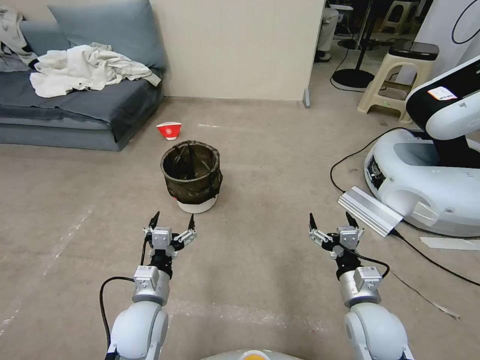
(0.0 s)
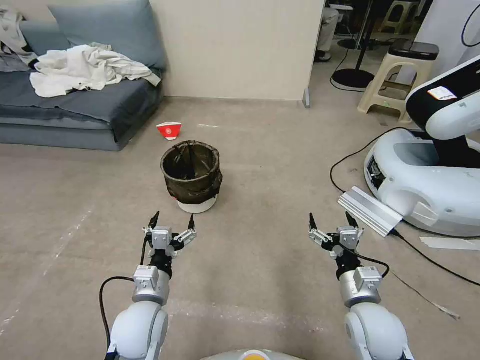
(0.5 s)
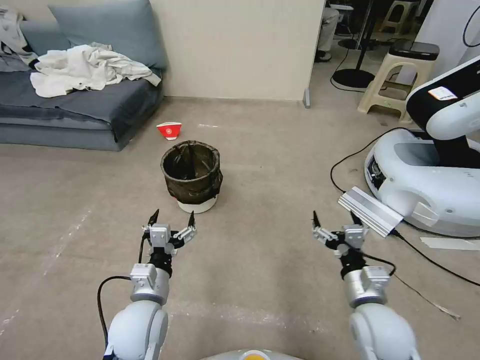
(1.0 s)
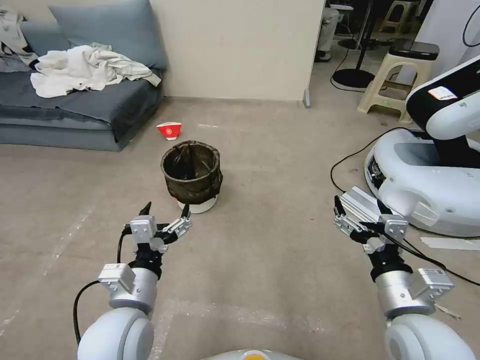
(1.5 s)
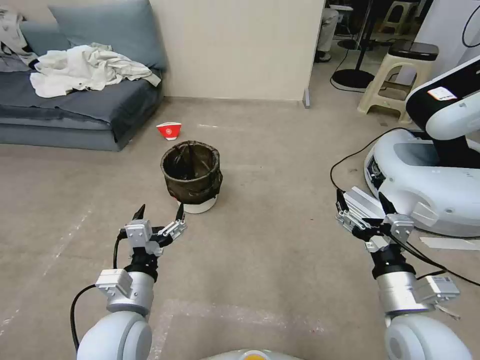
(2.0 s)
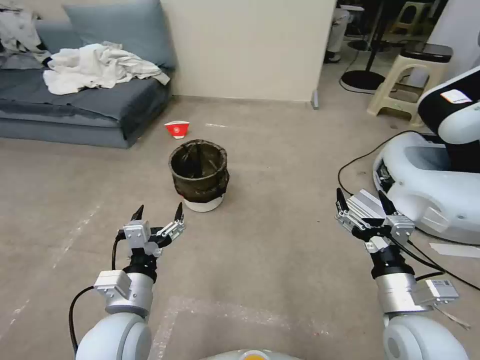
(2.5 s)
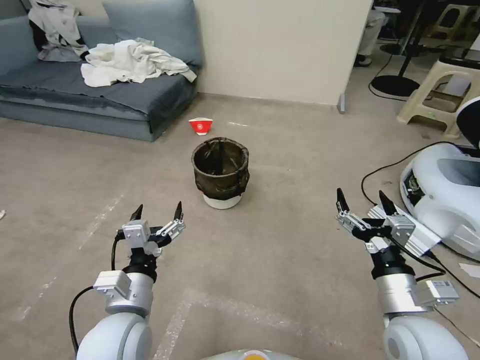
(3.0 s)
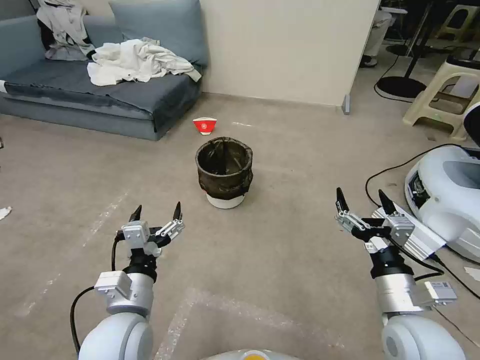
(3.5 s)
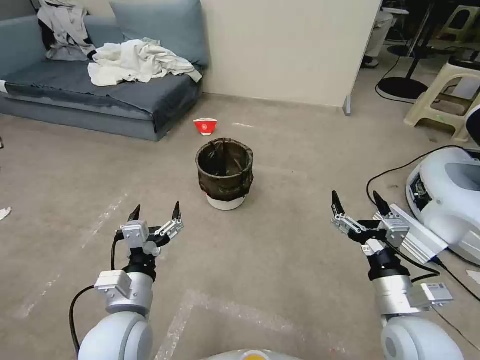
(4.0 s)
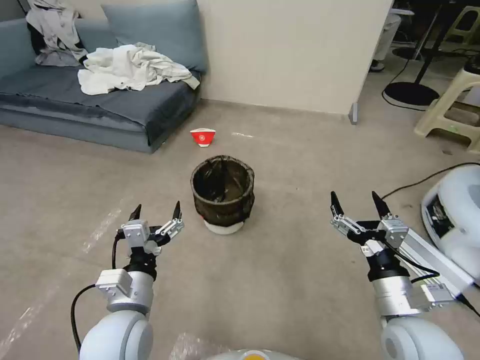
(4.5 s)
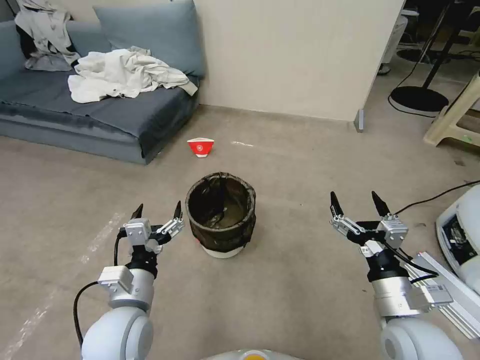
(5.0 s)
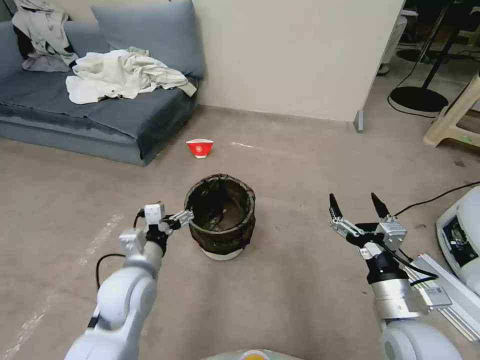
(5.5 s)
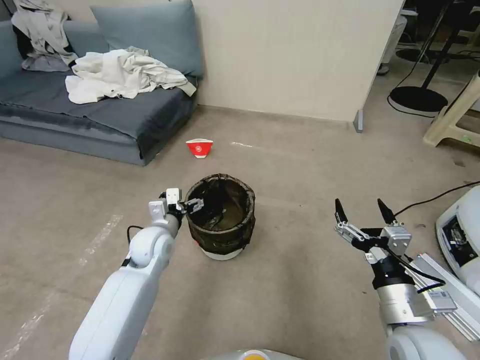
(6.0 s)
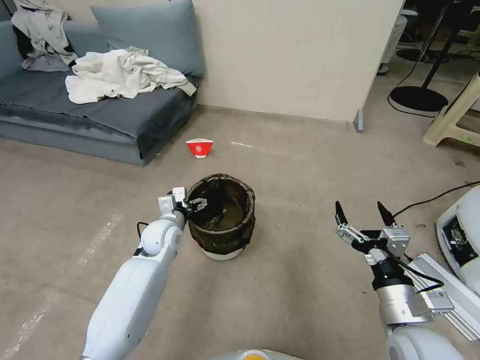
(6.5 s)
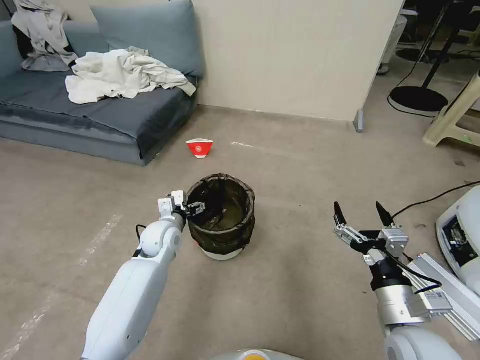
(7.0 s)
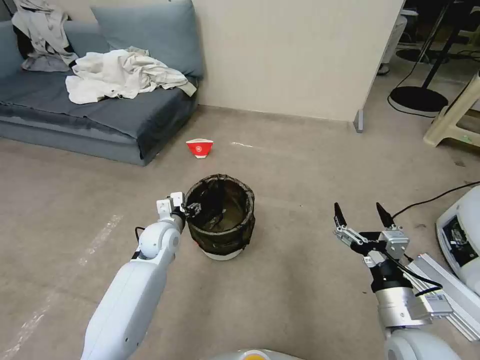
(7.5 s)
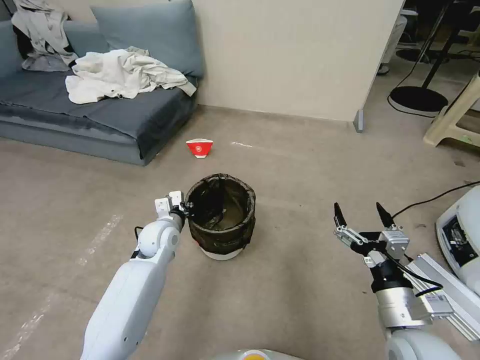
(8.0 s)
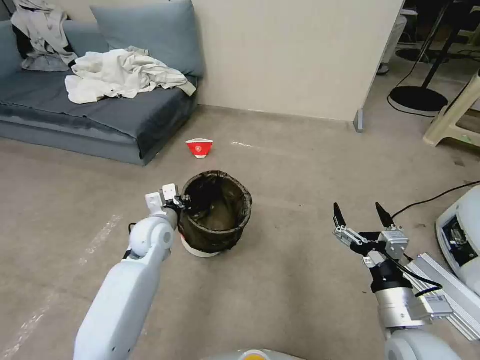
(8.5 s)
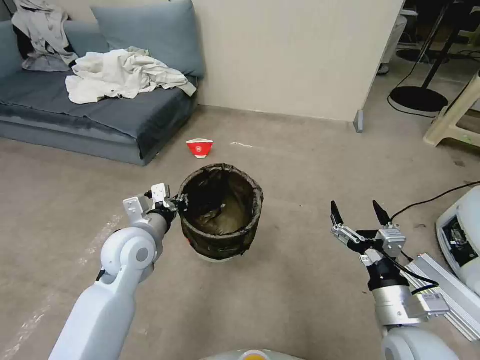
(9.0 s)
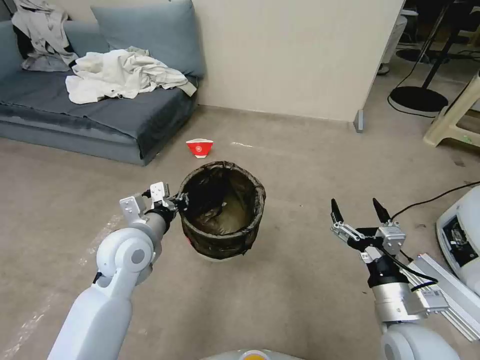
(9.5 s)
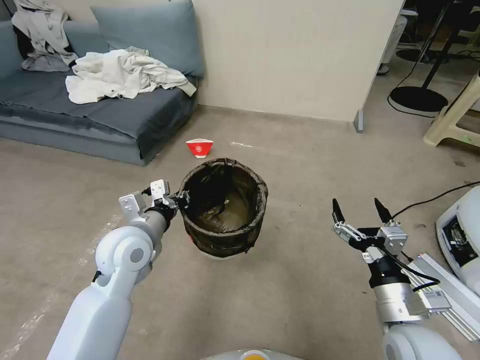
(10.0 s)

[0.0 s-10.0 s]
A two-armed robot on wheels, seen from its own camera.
Task of the whole recording: Pick up the trash can from the floor.
4.0 to 6.0 s: The left gripper travels forward by roughly 20 cm.
6.0 to 8.0 s: The left gripper closes its fingers.
8.0 to 10.0 s: The left gripper heads upward and backward, covering about 15 cm.

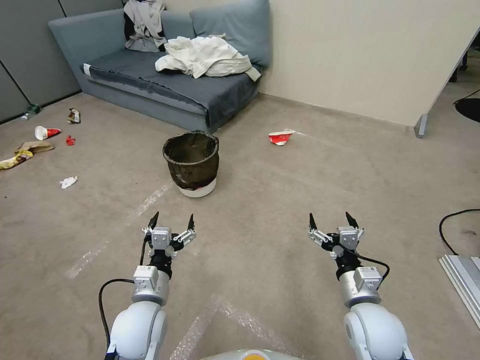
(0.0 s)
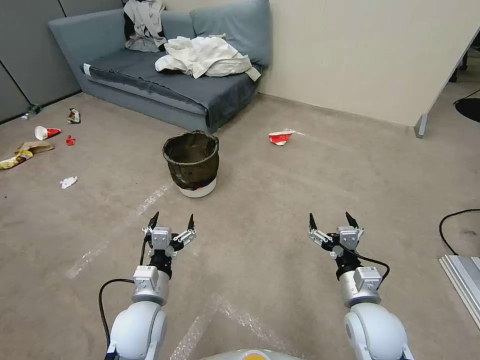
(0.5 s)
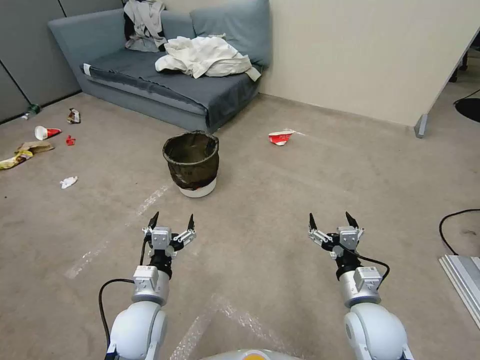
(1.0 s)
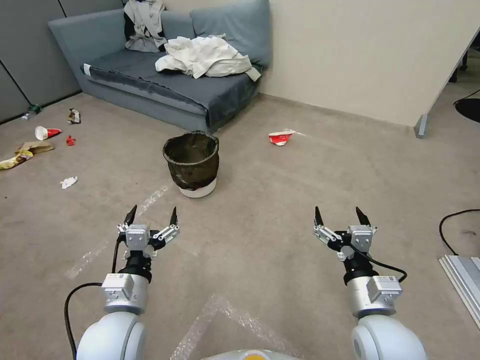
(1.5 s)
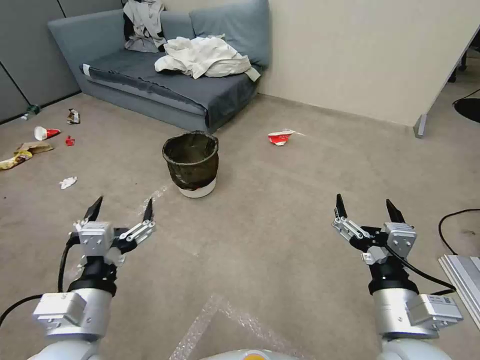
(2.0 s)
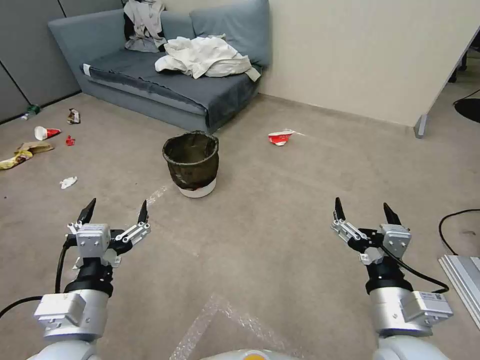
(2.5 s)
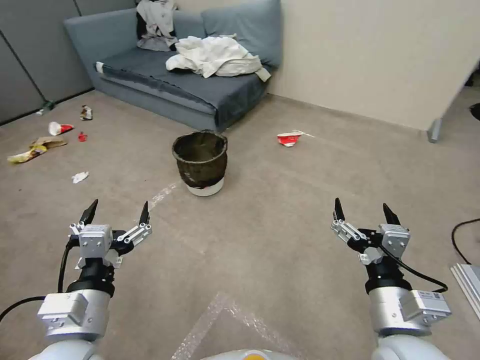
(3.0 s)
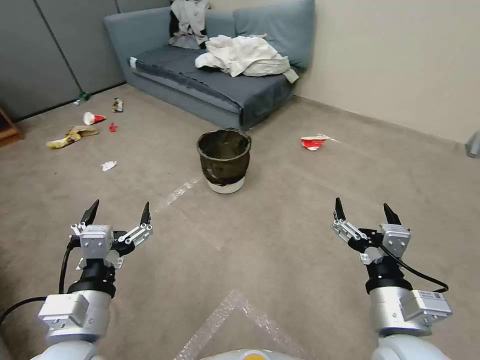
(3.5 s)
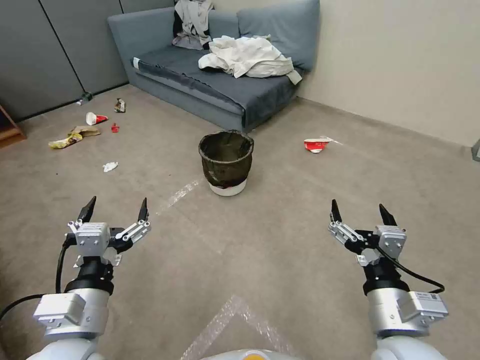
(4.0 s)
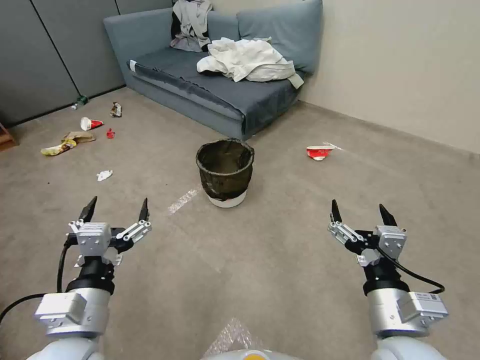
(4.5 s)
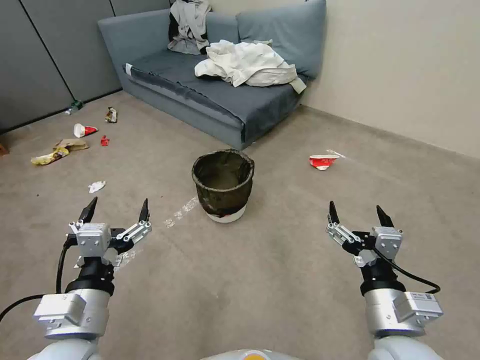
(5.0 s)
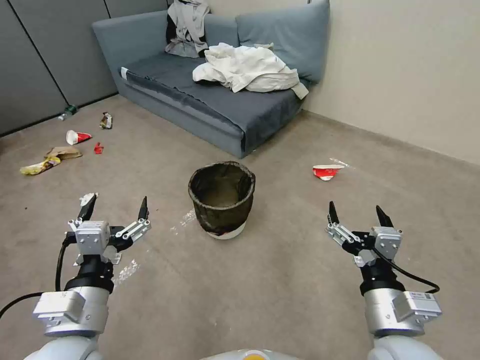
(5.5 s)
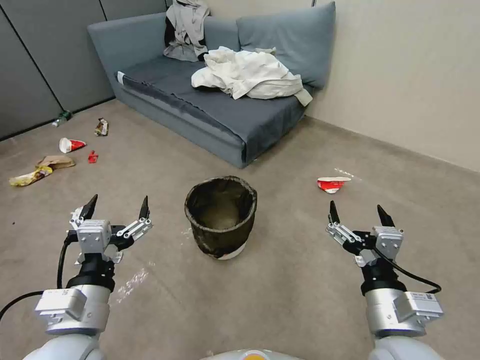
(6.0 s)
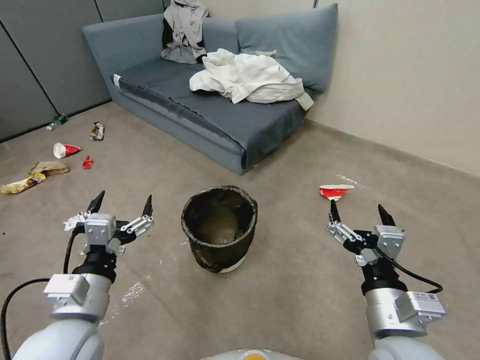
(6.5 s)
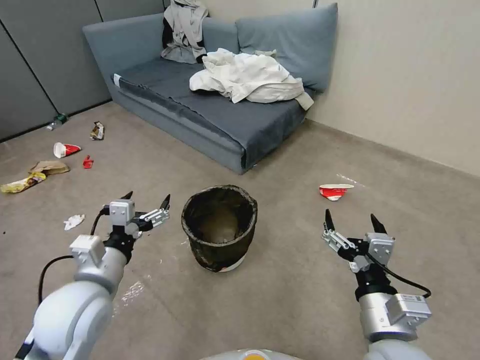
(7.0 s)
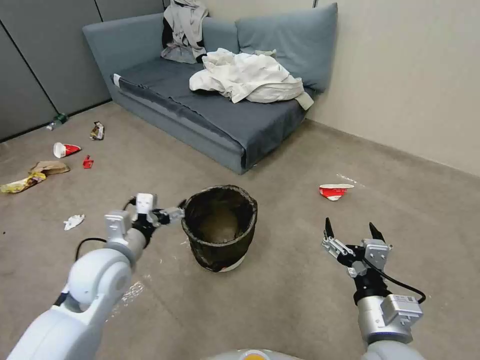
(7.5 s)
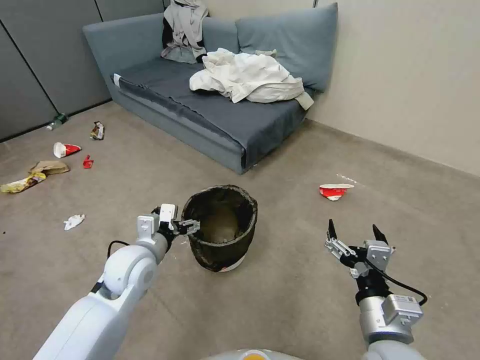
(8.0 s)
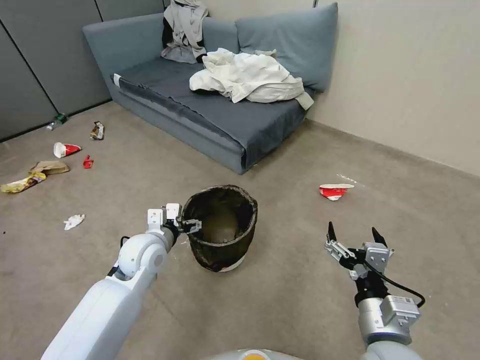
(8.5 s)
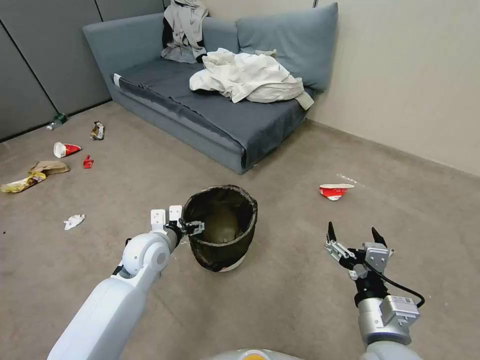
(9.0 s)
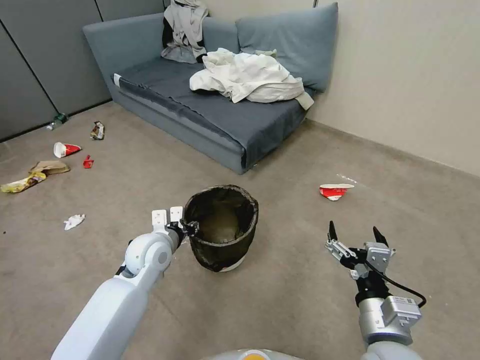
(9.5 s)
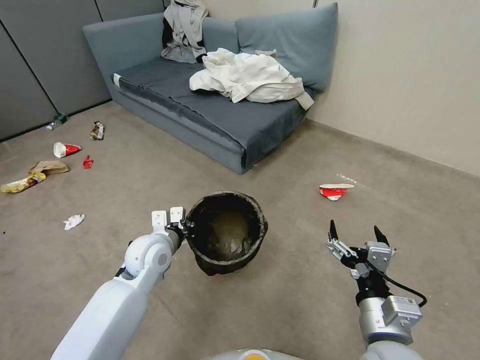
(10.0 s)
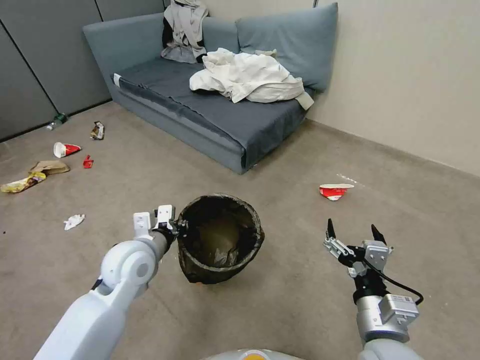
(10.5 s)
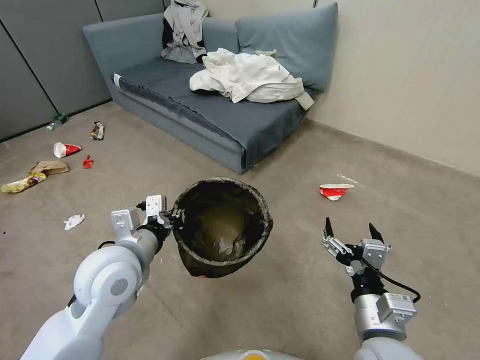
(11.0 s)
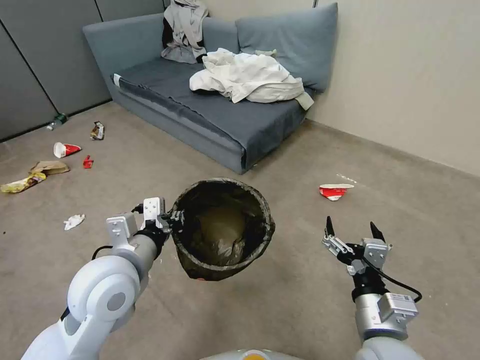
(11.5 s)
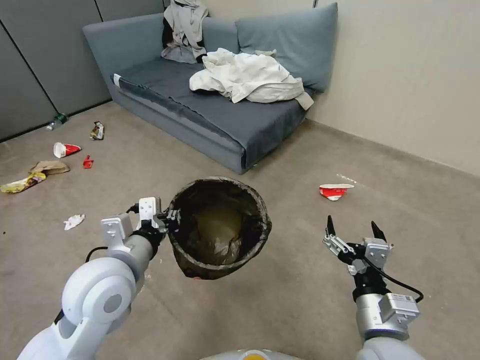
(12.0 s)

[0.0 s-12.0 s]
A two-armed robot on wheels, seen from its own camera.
Task of the whole recording: Pick up the trash can from the floor.
6.0 to 8.0 s: The left gripper travels forward and downward by roughly 20 cm.
8.0 to 10.0 s: The left gripper changes place by about 5 cm, and closes up.
10.0 to 12.0 s: The left gripper moves upward and backward, some 15 cm.
